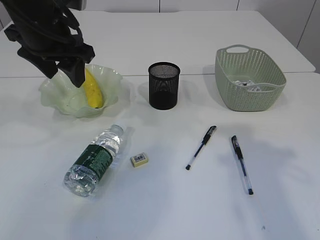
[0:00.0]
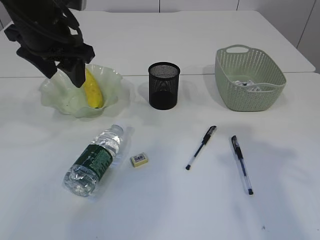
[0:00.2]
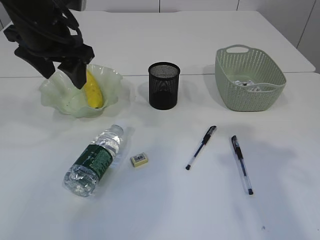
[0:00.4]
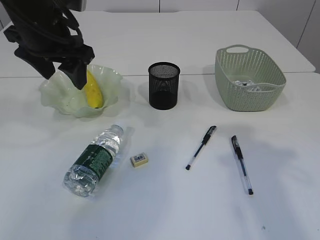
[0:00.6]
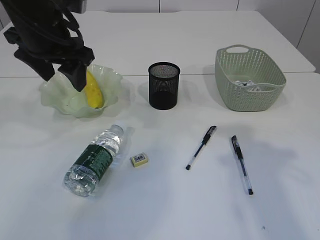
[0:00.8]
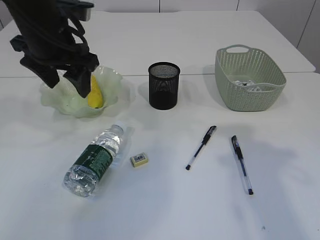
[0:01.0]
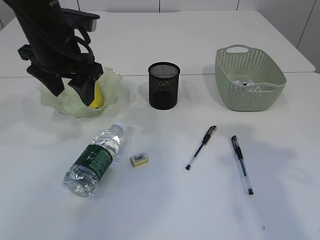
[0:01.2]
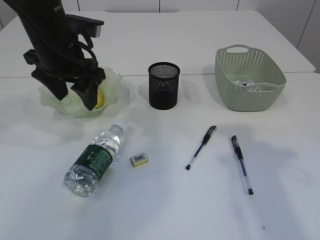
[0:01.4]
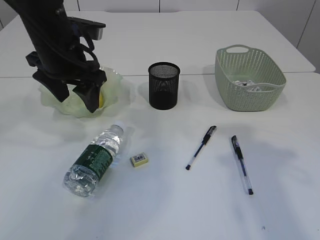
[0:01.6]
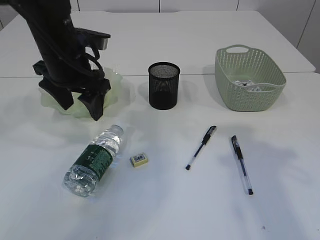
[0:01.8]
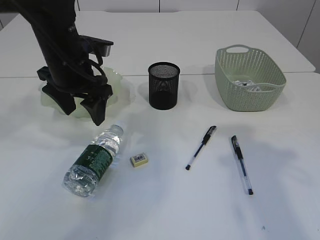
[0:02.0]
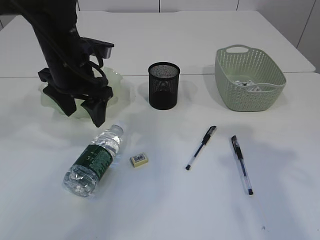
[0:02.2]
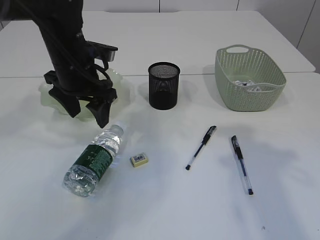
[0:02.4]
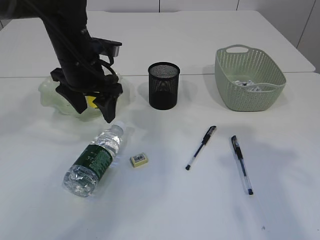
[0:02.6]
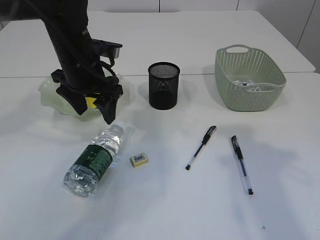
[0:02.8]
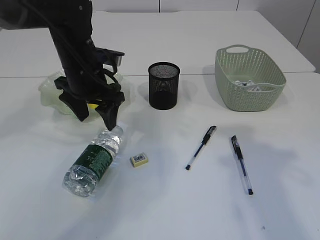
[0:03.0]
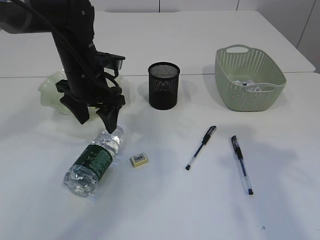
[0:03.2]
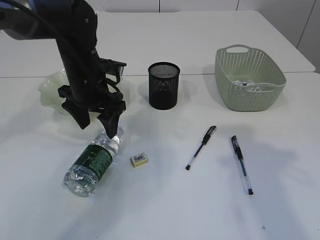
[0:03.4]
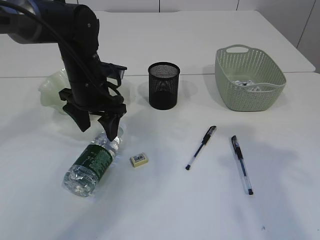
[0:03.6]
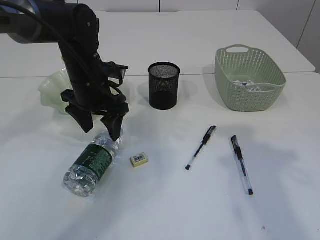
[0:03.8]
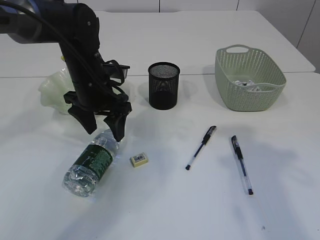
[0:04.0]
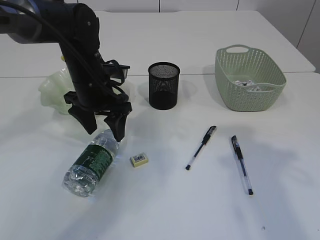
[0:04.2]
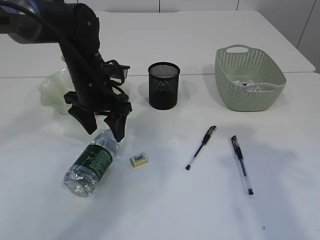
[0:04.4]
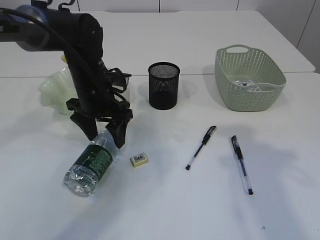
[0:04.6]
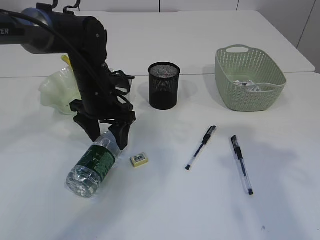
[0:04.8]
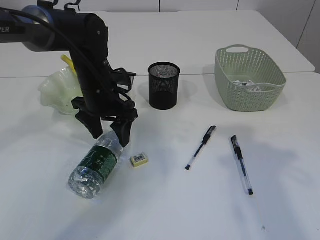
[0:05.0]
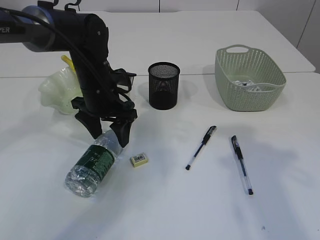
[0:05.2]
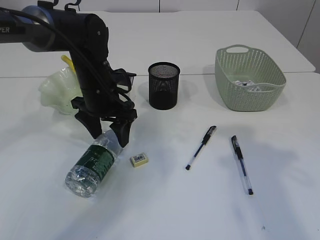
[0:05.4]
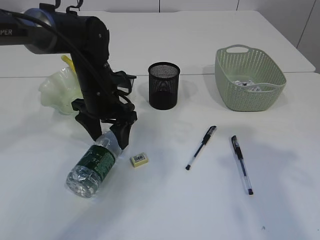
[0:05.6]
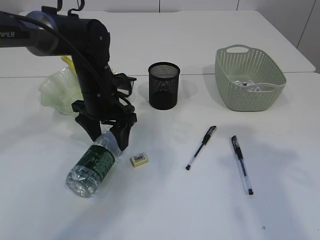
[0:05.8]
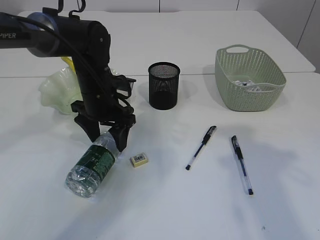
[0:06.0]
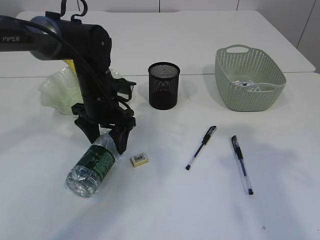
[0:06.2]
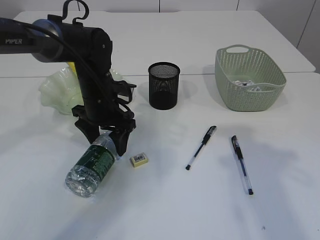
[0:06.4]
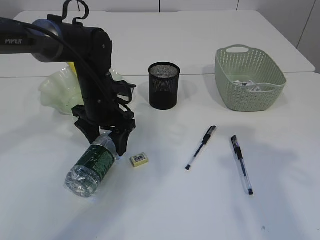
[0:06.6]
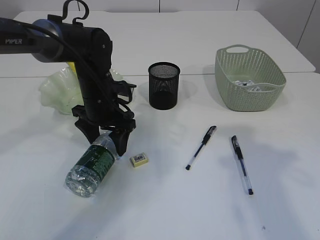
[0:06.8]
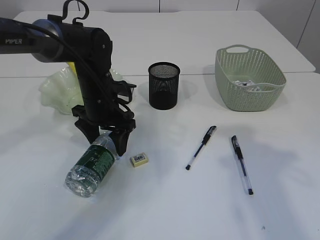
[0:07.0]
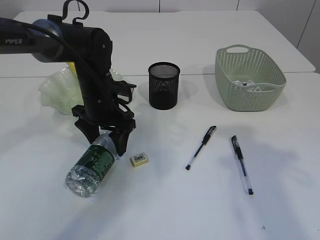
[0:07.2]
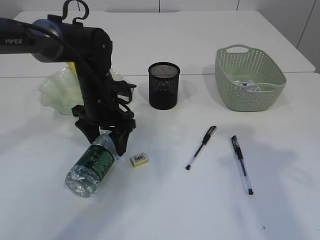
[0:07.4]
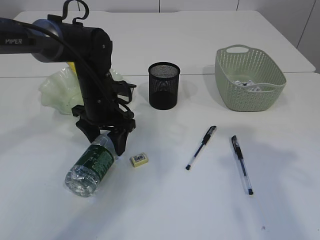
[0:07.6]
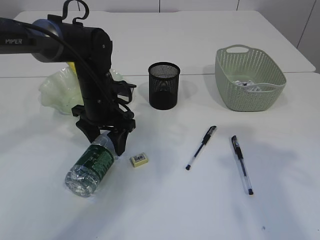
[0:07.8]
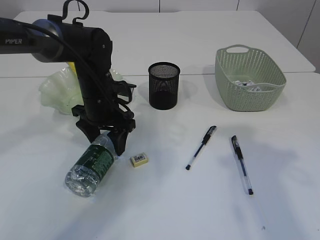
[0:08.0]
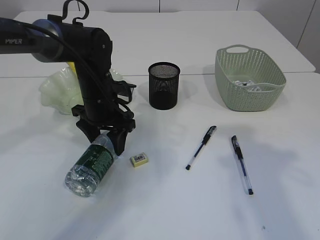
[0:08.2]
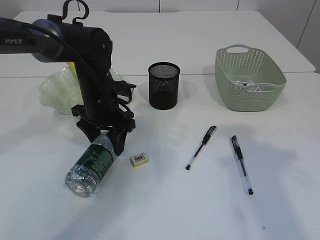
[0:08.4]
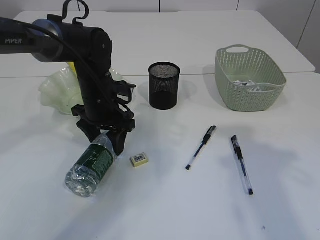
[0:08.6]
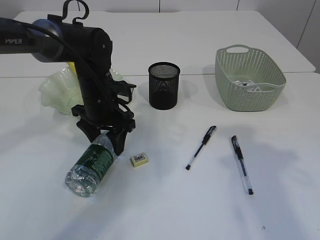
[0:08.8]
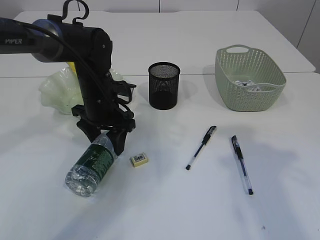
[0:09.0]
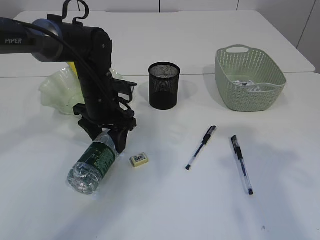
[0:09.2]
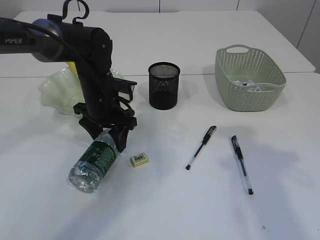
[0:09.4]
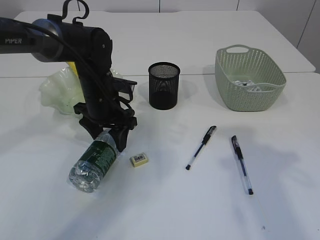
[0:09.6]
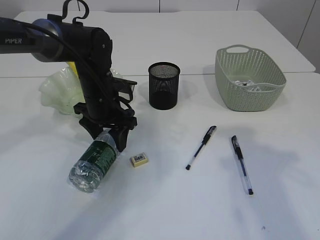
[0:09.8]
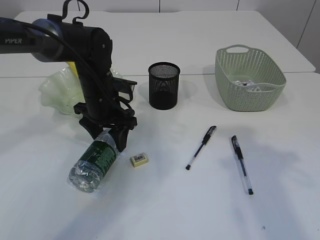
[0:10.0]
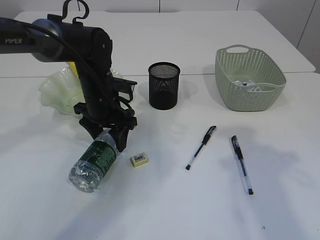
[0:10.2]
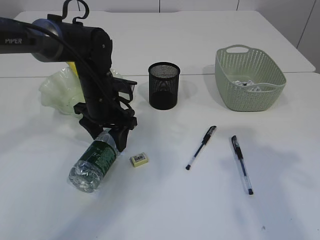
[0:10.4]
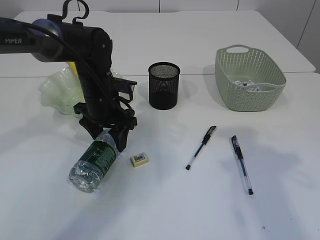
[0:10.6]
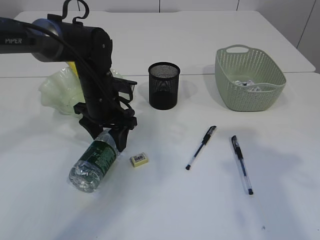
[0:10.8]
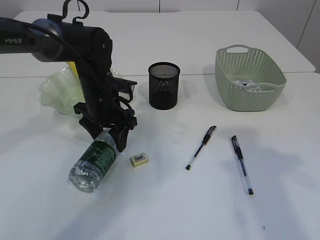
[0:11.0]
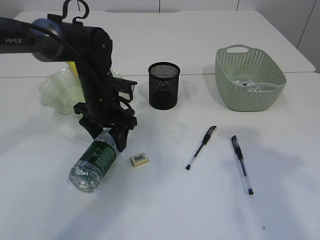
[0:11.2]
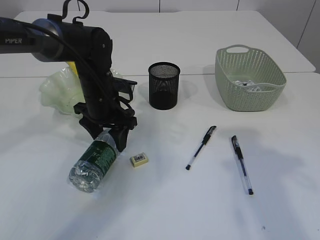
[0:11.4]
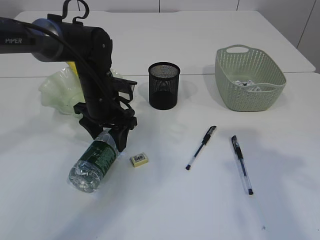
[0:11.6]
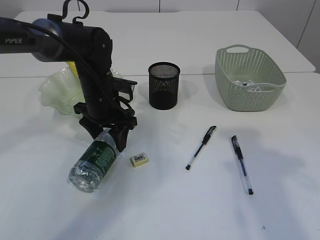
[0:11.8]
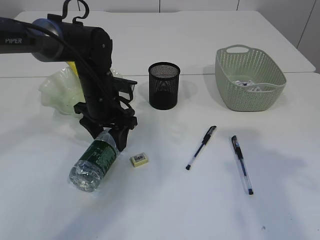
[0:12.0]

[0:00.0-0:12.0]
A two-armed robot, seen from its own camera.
0:00.0 to 0:01.6: The grippers make only small movements.
0:01.6 to 0:03.0: The left gripper moves downward, about 5 cm.
0:03.0 to 0:06.0: There are only small adjustments of the grippers.
0:06.0 to 0:10.4: Both grippers stay put.
0:10.4 to 0:12.0: Neither gripper changes place.

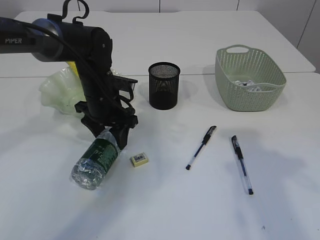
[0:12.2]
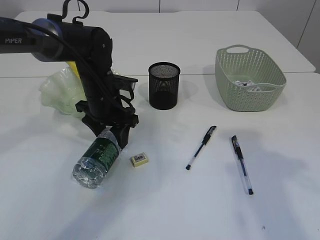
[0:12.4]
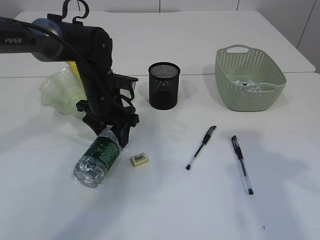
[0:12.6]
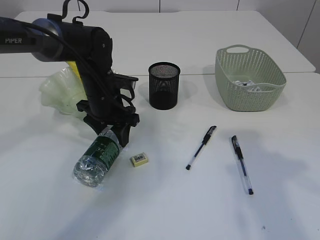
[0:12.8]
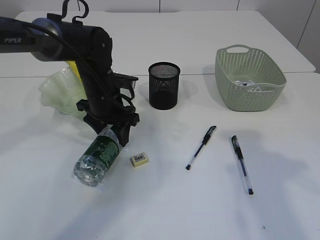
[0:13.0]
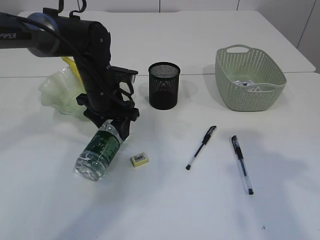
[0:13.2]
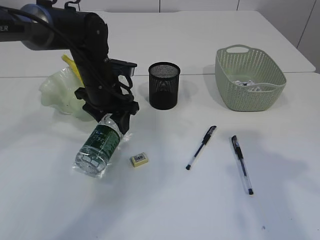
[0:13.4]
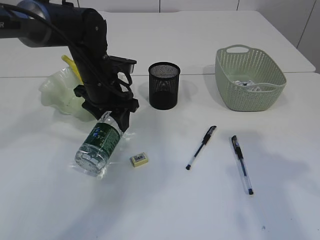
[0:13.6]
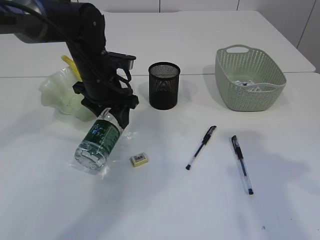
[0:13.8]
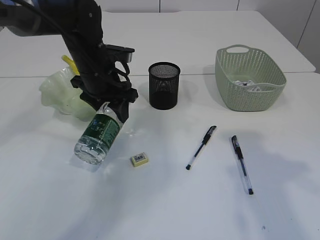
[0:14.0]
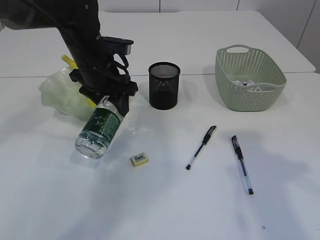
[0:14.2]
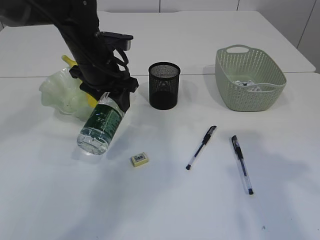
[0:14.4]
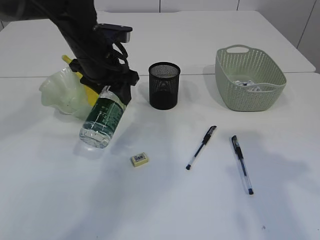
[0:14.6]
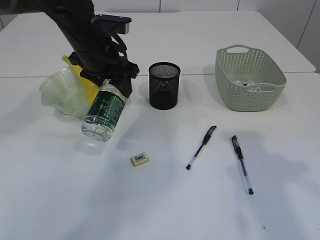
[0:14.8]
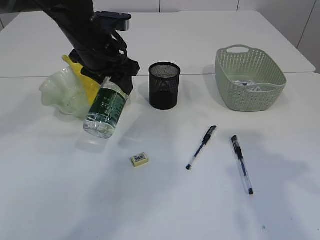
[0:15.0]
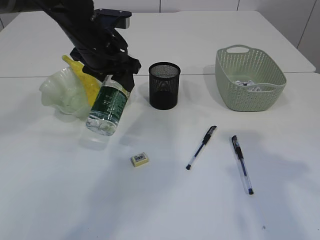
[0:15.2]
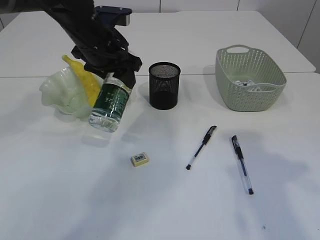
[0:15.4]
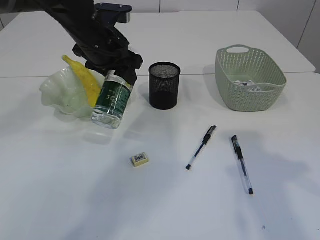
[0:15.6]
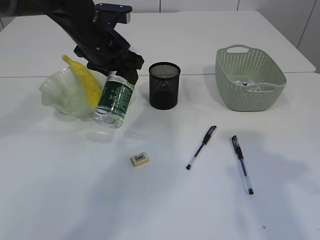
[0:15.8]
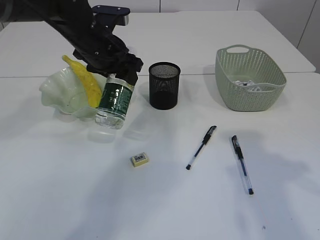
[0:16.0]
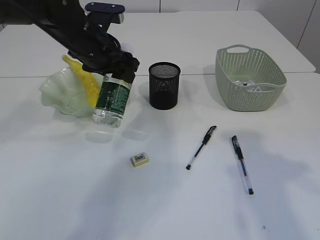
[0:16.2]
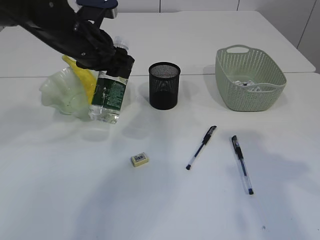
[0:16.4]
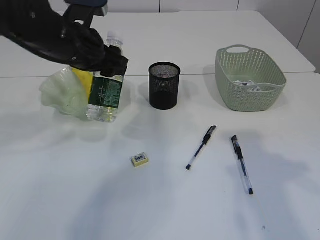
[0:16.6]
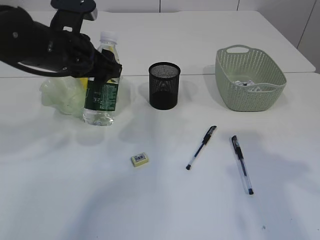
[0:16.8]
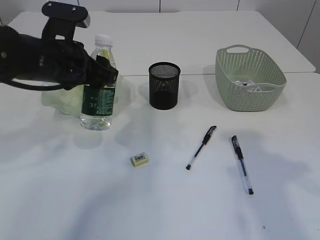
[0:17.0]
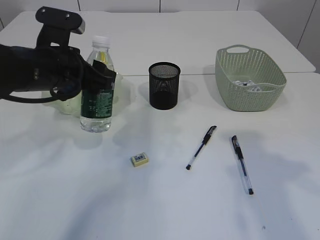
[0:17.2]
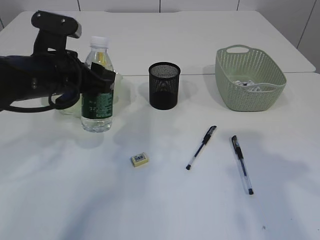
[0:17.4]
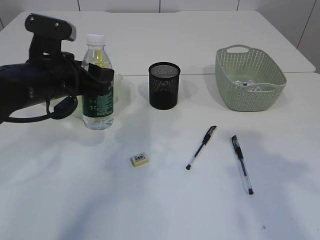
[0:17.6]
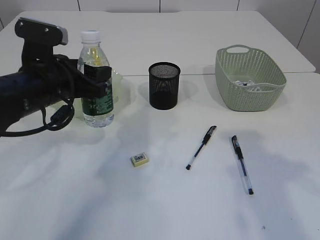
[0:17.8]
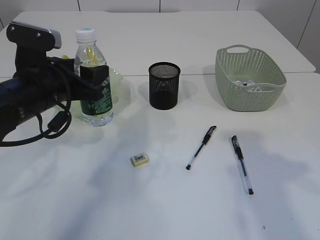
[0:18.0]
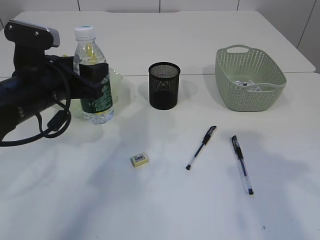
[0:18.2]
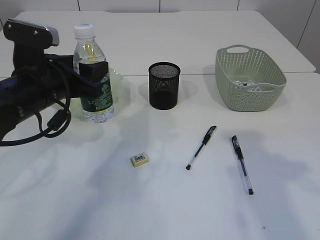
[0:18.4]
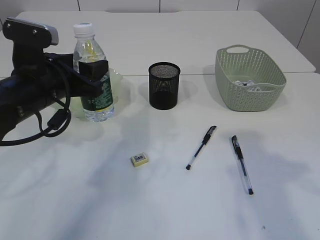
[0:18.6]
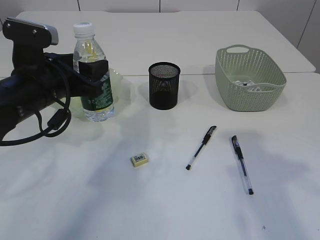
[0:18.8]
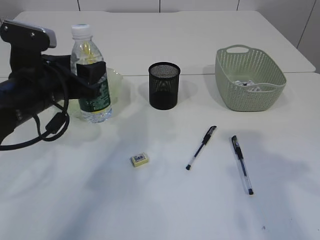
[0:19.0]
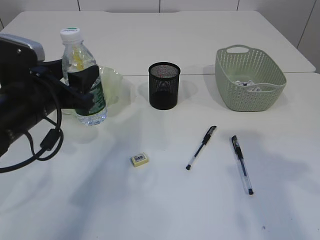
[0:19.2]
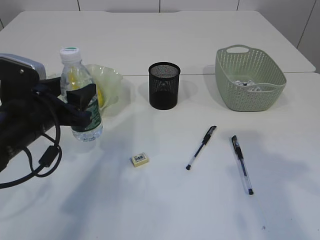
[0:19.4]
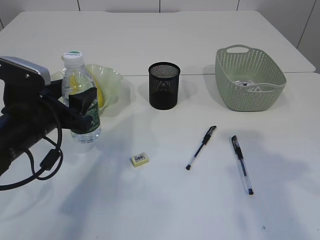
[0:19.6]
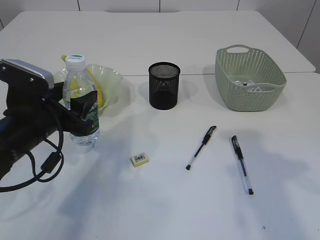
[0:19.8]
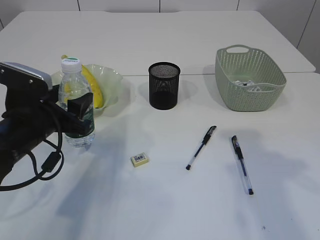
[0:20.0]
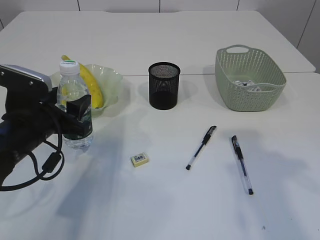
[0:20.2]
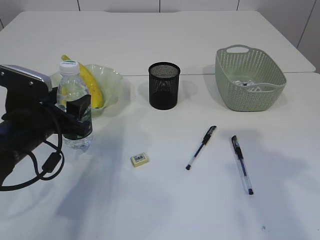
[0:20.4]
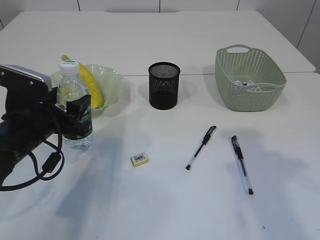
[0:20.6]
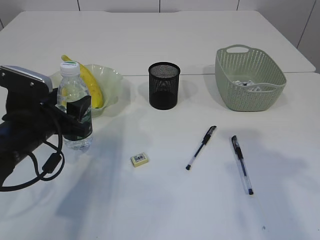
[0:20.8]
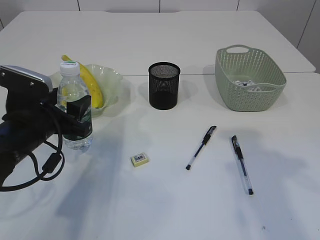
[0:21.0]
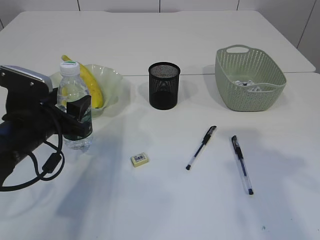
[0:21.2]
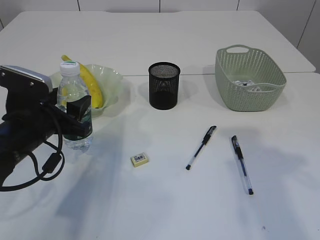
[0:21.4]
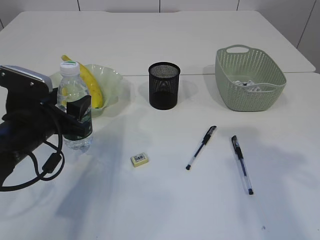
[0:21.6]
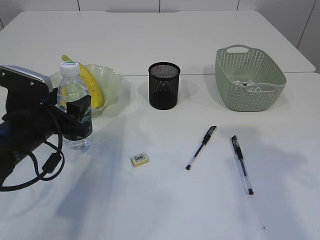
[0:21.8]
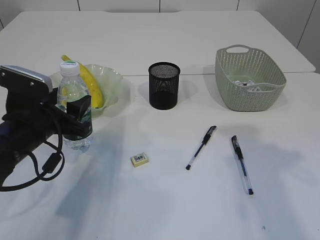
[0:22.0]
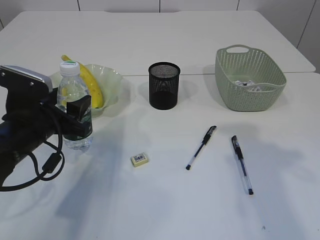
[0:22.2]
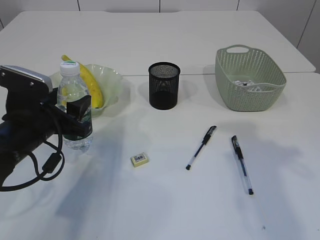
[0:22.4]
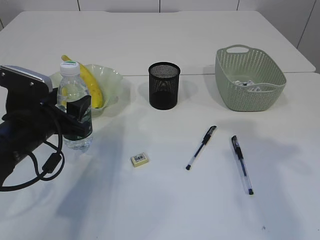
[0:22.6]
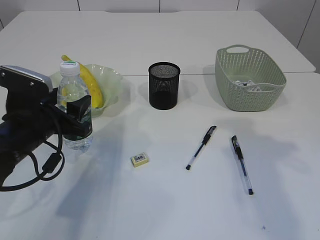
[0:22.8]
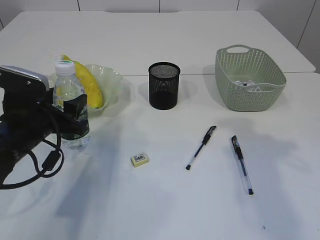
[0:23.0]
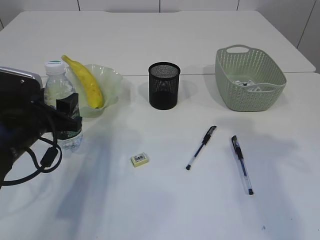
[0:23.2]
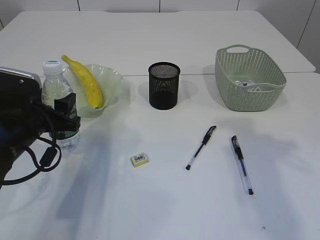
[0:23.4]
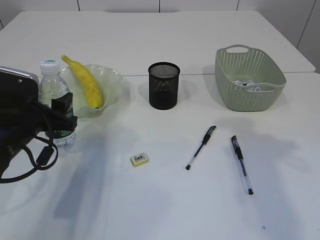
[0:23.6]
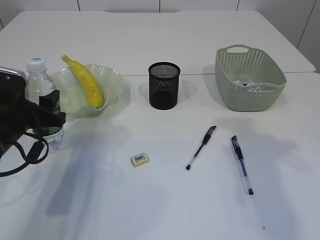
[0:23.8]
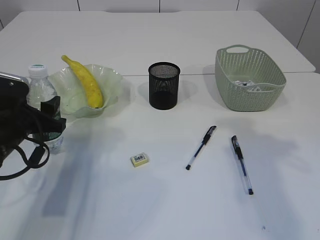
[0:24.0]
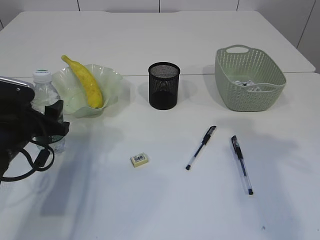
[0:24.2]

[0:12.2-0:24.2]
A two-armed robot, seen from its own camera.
Step, 0:12.2 to 0:14.4: Pick up the bottle with the left arm.
0:12.2 to 0:13.8: The grippers stay close to where they were, moving slightly.
0:13.8 to 0:15.2: The left gripper shifts approximately 5 cm upward.
0:16.6 to 0:18.2: The left gripper shifts roughly 5 cm backward.
0:18.2 to 0:19.8: The left gripper changes place by about 5 cm.
0:19.8 to 0:21.2: The grippers stay close to where they were, moving slightly.
0:22.6 to 0:24.2: The left gripper ends up roughly 5 cm from where it was.
